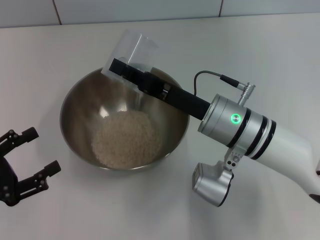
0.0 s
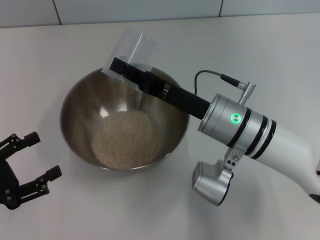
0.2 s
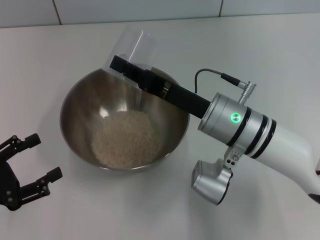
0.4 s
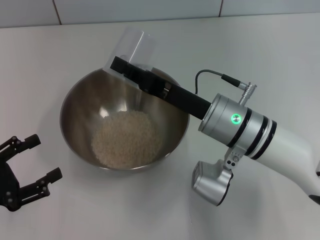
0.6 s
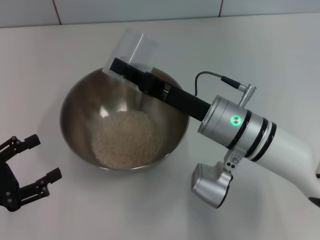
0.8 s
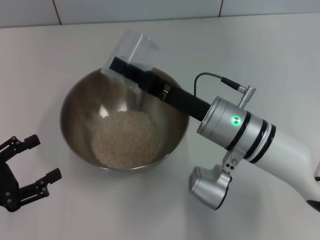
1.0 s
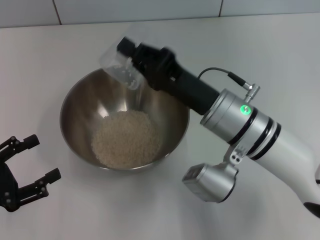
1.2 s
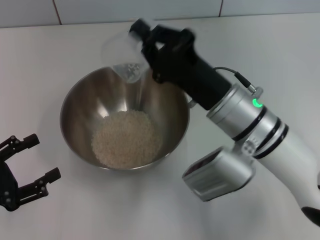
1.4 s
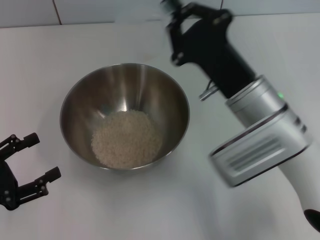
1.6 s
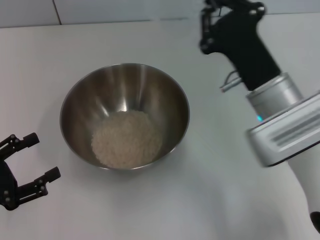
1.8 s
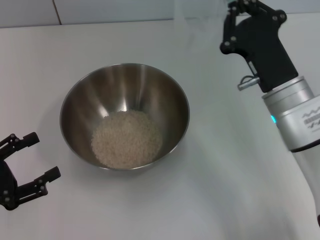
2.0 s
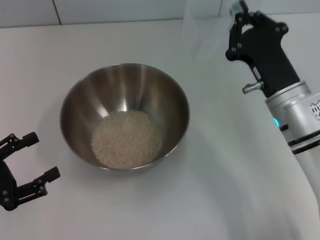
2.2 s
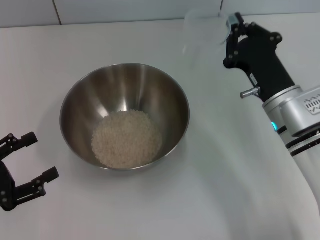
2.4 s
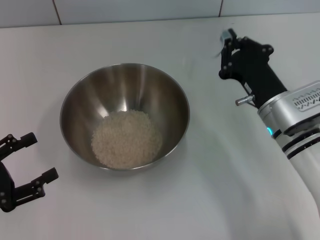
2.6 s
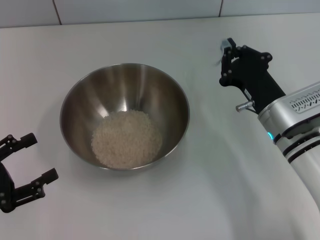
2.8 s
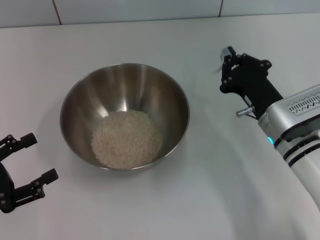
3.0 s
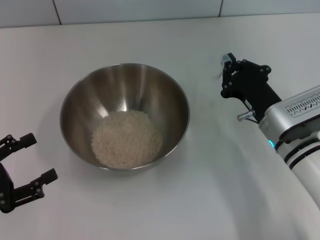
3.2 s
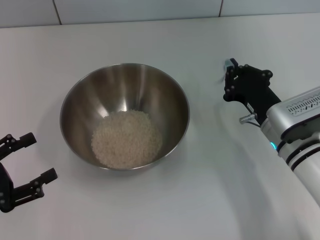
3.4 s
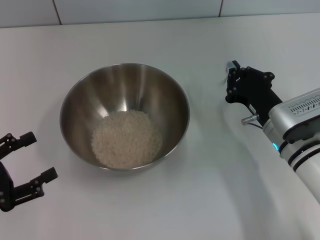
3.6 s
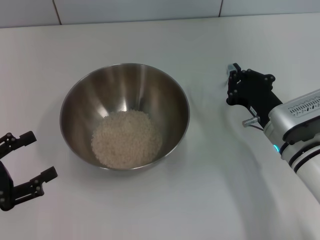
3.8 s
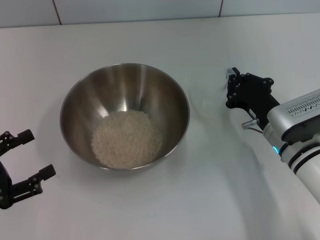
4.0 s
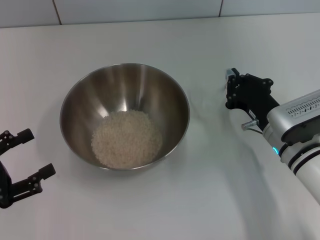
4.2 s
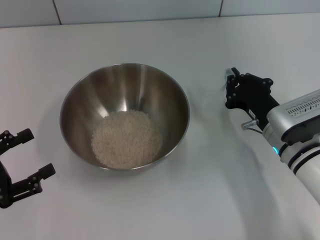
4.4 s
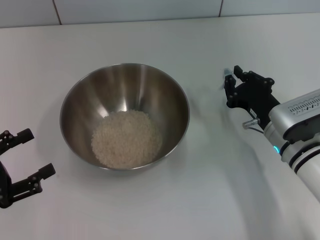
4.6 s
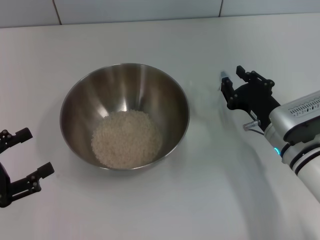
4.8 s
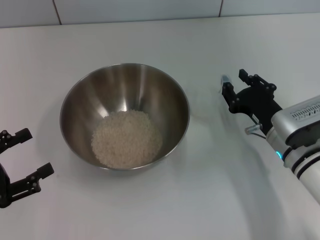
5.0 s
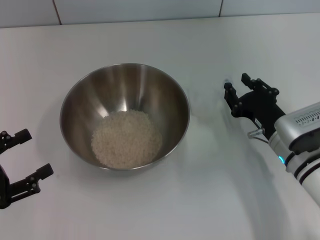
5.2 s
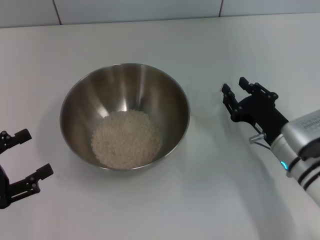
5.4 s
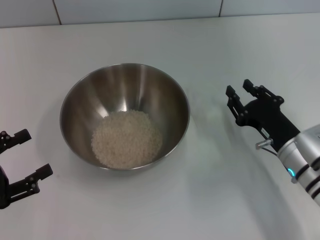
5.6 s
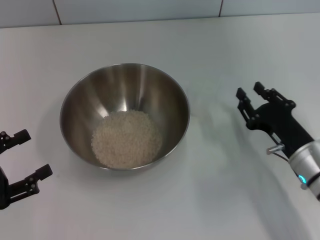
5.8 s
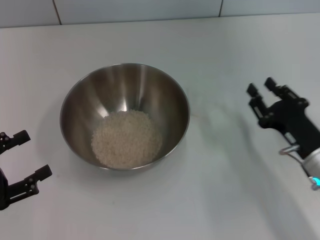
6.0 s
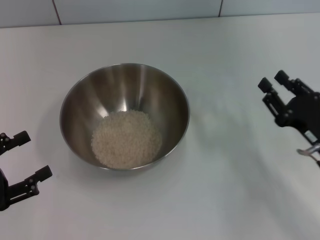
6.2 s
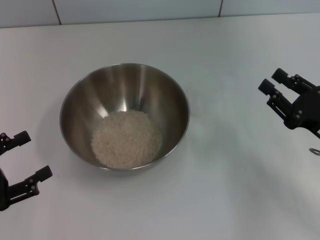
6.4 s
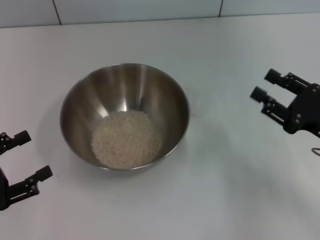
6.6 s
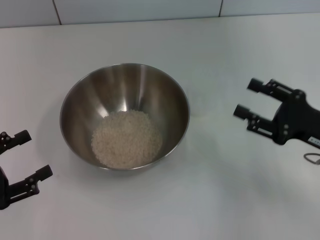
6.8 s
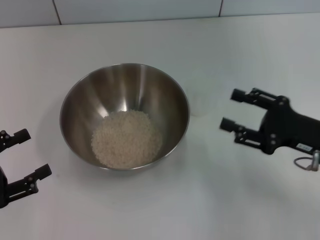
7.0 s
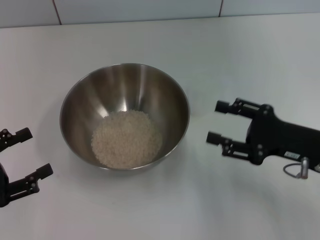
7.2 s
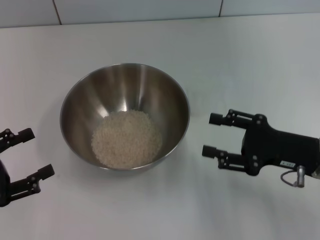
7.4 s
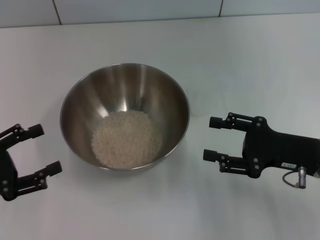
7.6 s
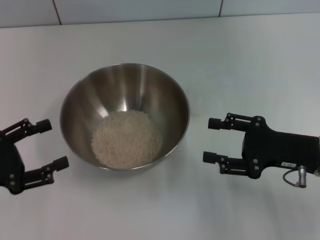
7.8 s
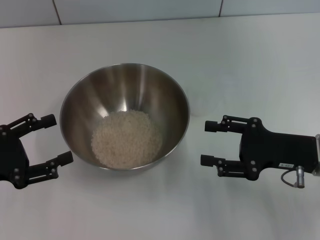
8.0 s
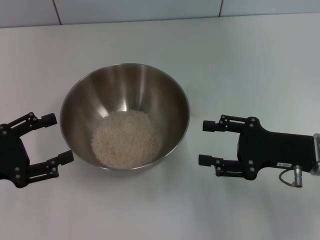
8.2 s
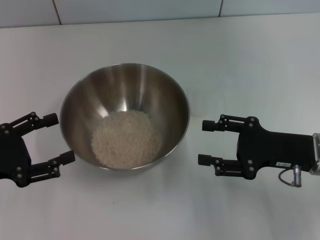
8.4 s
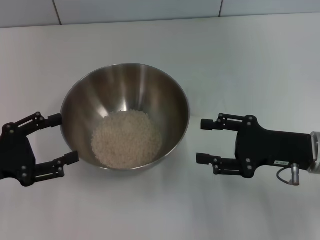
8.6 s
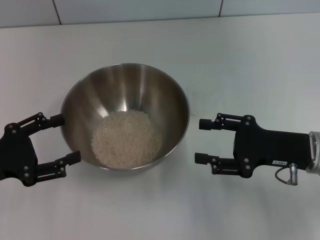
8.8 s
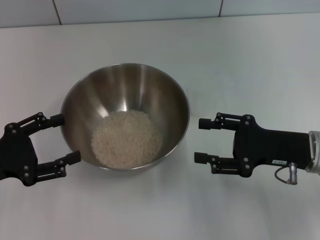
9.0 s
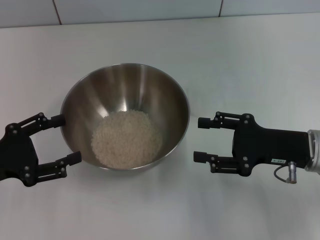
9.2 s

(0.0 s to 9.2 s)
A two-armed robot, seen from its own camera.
Task of the whole recording: Place the bowl in the middle of the table with one hand and pour the rice from the grain cup into it with the other hand.
Step, 2.0 s - 5.8 s: Place the cup on the table with the right gripper.
1.6 s - 3.0 s: The right gripper is displaced downward and to the right by roughly 10 cm.
3.0 s - 4.6 s: The grippers make only small movements.
4.6 s - 6.2 s: The right gripper is displaced to the right and backward by some 10 cm, and opens.
6.2 s - 7.6 s: The right gripper opens.
7.6 s - 9.2 s: The grippers stay close to where they were, moving slightly.

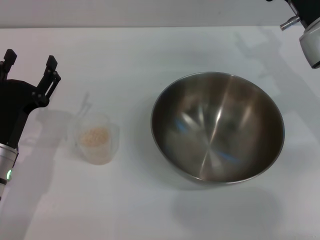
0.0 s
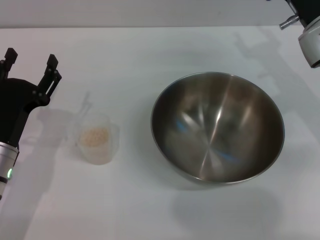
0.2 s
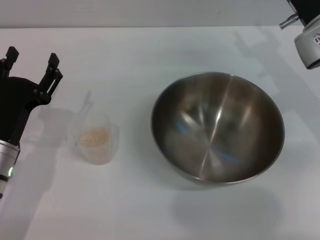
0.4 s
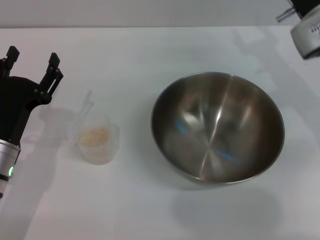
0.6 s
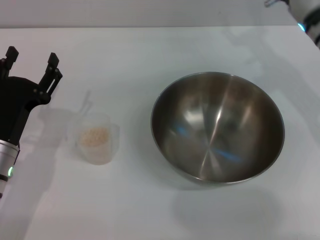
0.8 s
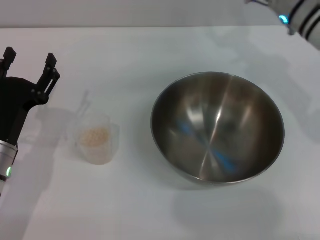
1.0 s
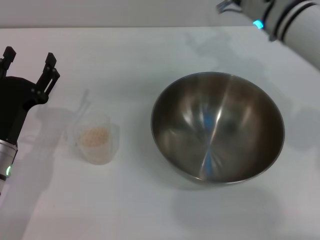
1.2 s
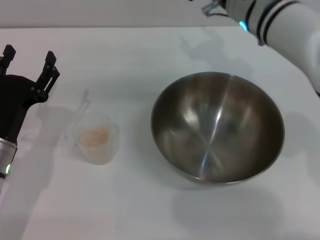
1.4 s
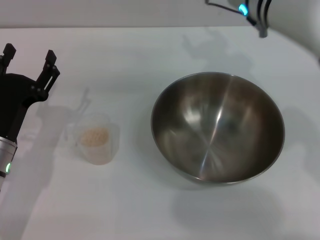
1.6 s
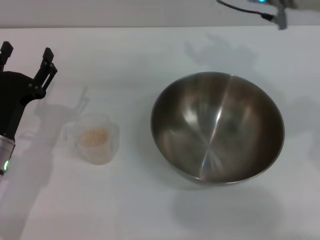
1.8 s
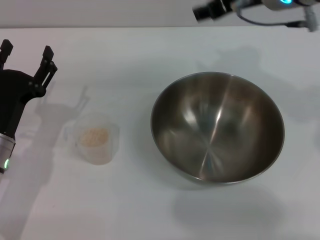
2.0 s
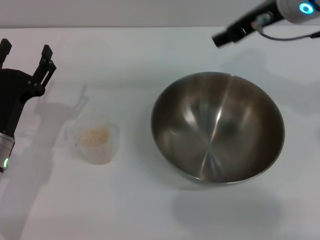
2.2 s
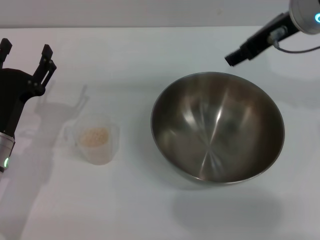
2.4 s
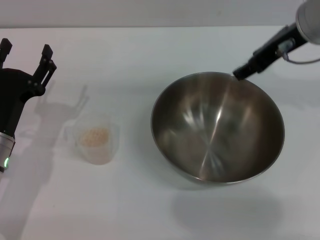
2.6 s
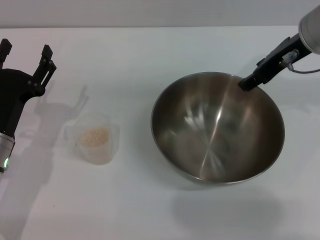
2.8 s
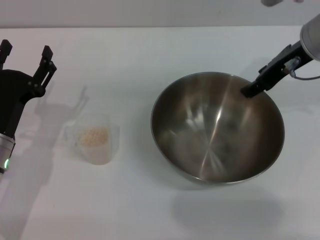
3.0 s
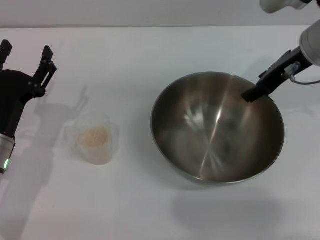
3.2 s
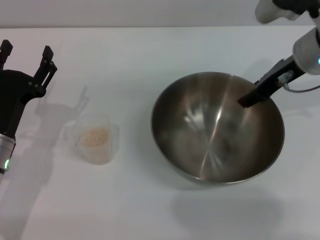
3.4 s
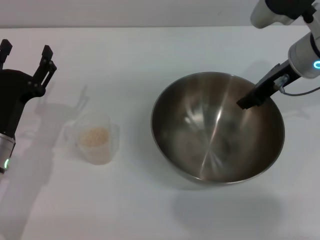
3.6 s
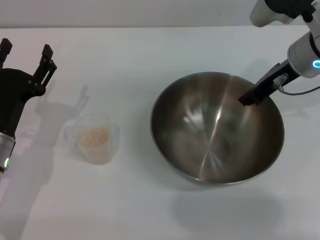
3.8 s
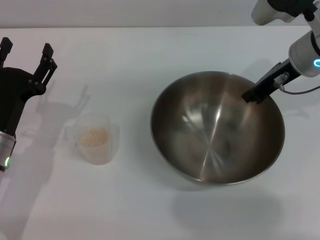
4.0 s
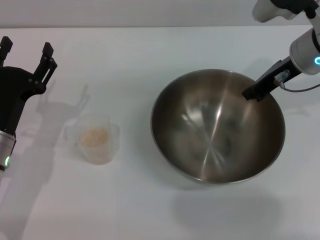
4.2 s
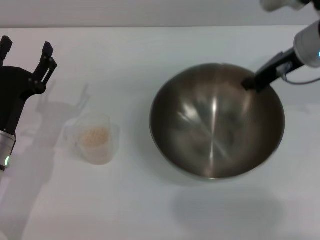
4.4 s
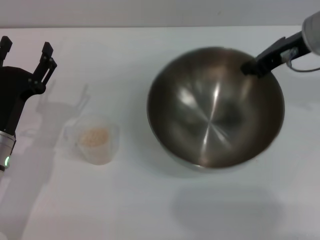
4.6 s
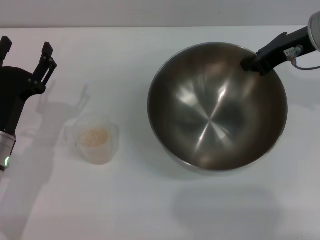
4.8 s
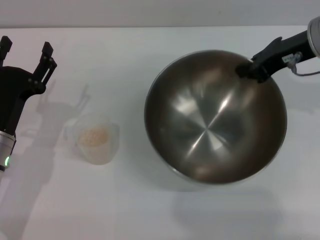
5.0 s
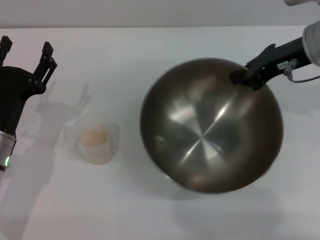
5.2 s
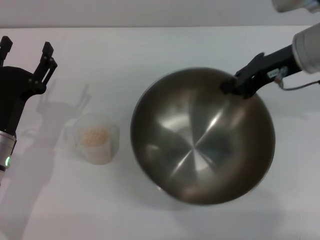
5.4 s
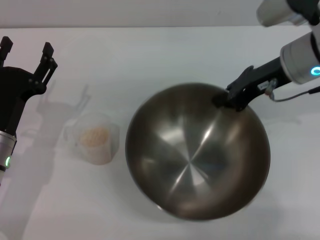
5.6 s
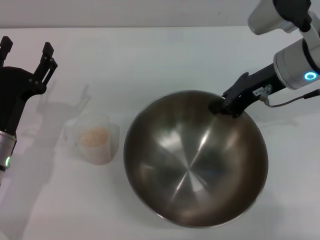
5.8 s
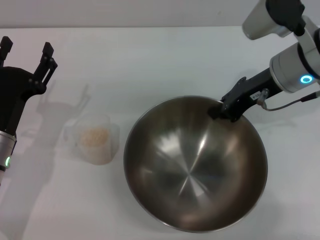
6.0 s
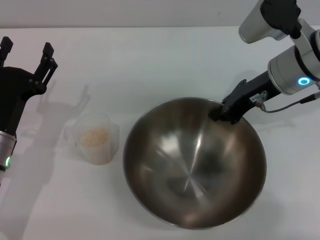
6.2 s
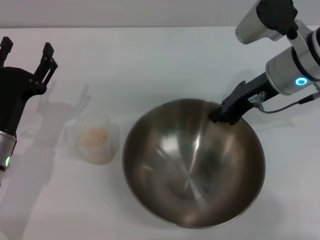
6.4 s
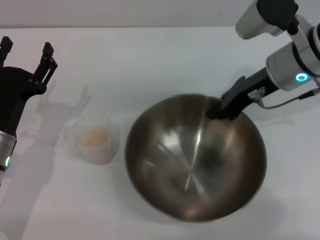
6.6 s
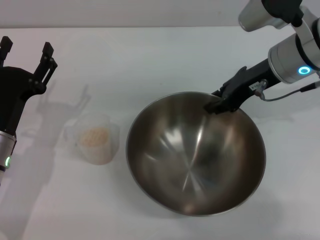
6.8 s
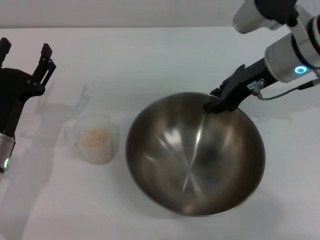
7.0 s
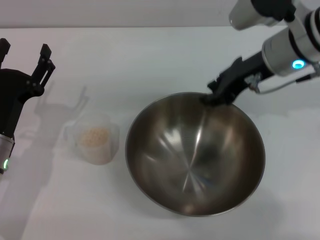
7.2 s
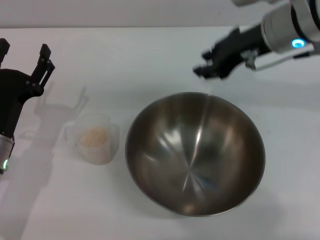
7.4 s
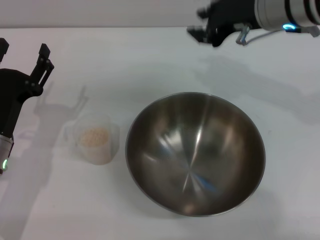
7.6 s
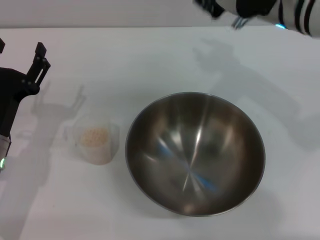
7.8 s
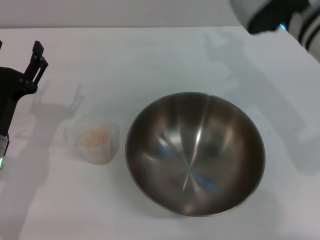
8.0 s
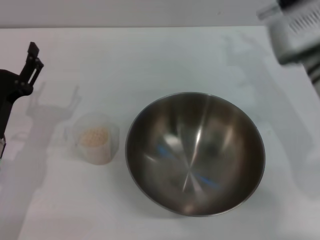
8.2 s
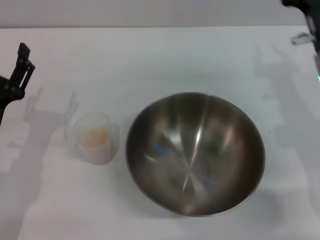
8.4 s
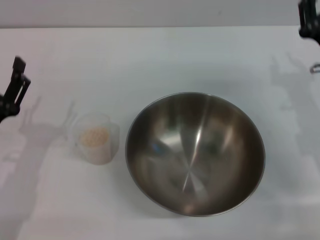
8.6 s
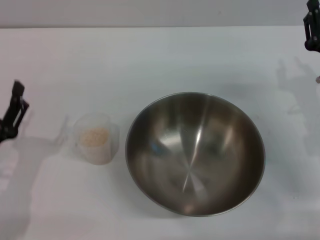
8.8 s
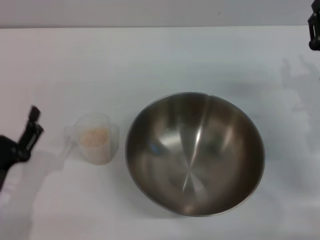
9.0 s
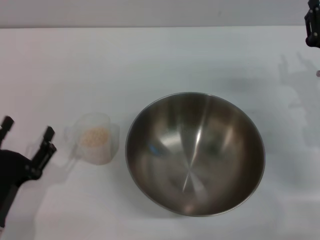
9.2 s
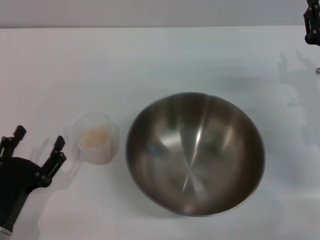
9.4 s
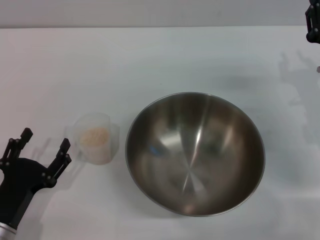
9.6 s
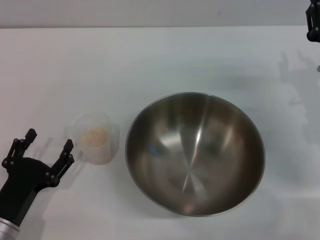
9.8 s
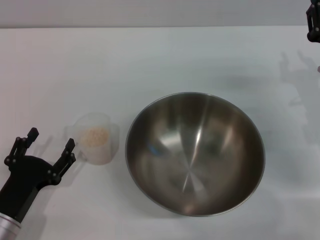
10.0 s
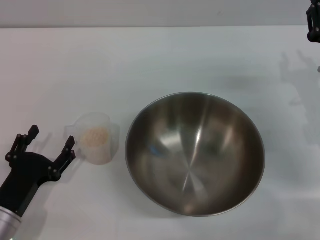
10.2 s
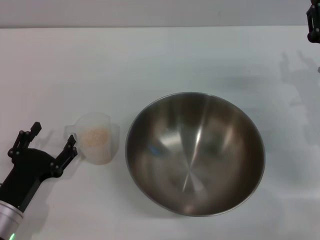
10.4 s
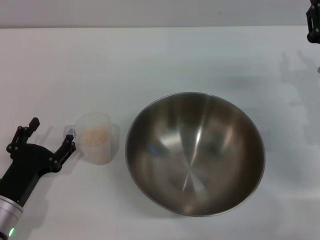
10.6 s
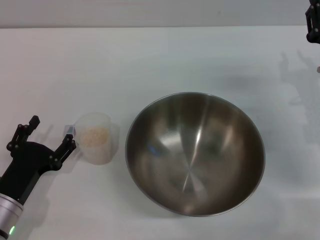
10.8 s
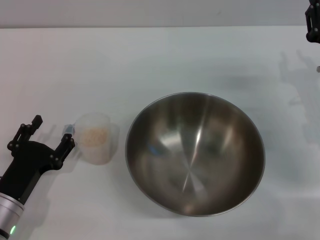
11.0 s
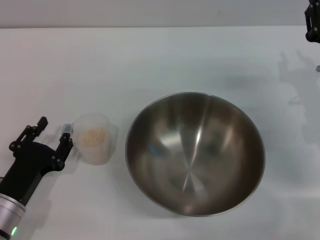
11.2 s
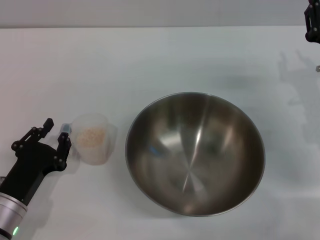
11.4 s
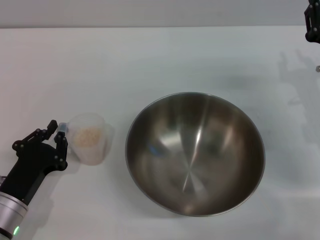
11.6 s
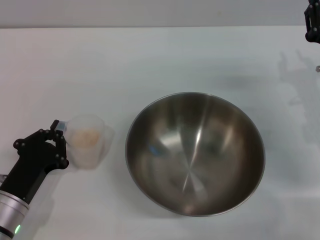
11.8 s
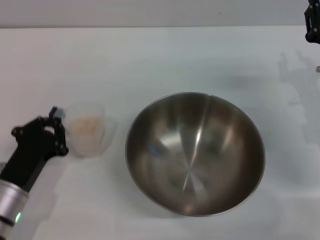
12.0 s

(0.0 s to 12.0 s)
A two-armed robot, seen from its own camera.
Task of the whole recording: Place the bowl in the middle of the table with one hand and pour the rice from the grain cup into it with the other hand.
Step, 0.0 s - 4.6 s: Pick up the bowl with the right gripper.
Step, 4.8 s - 7.2 s: Place the bowl in the center of view with the right gripper.
Step, 7.4 s - 12.0 s: Pick up the cup with rice in it with the left gripper.
0.0 s - 1.6 s: The right gripper is displaced to the left and upward by about 15 cm.
1.6 s - 3.0 s: The right gripper moves to the right, roughly 10 cm.
3.0 s - 4.4 s: The right gripper closes its fingers.
6.0 s - 7.6 s: The right gripper is displaced upward by some 5 cm, and opens up.
7.6 s - 9.0 s: The left gripper goes some 10 cm backward. Meanwhile the right gripper travels downward, to the right and backward by roughly 20 cm.
9.0 s - 10.4 s: There are only small adjustments of the grippers.
10.4 s - 12.0 s: The left gripper closes its fingers.

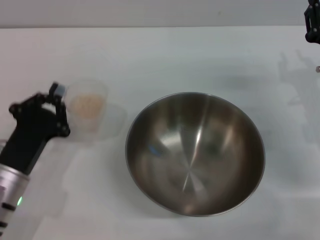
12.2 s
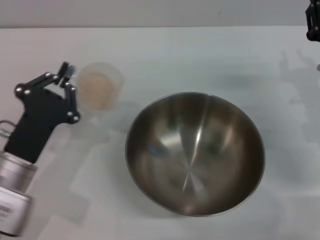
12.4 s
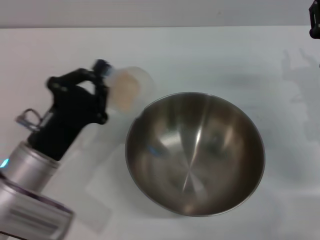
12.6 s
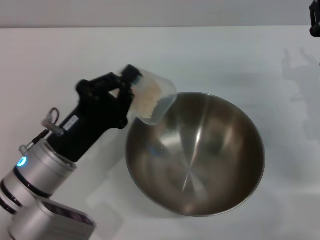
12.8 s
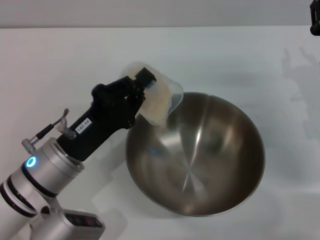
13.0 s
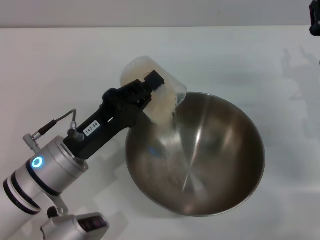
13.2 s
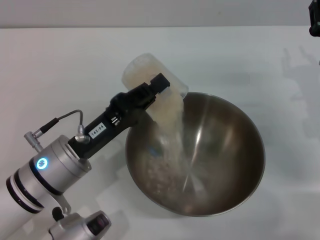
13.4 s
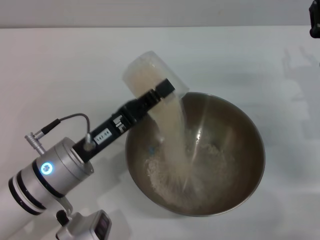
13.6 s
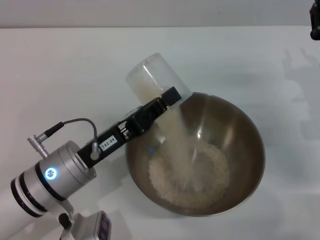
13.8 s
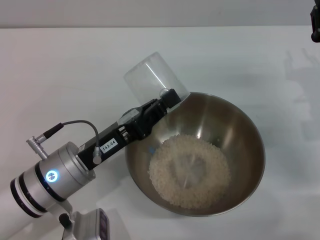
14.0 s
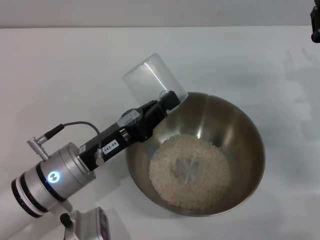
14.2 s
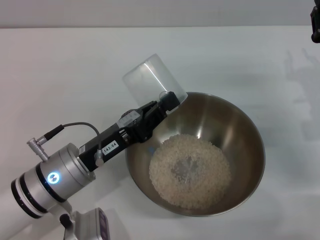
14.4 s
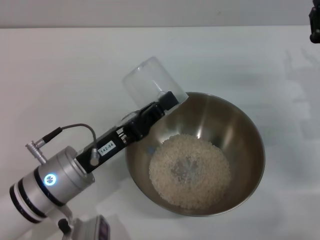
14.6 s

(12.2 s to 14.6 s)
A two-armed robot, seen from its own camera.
Task of the whole recording: Place the bowl in the middle of the table with one hand and pour the rice from the grain cup into it with the other hand.
Step, 12.2 s - 14.4 s: Pour the rice from the cup into the bowl with the left gripper.
12.2 s - 13.4 s: The left gripper heads to the right and upward, covering roughly 10 cm.
